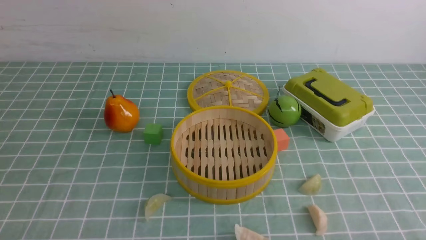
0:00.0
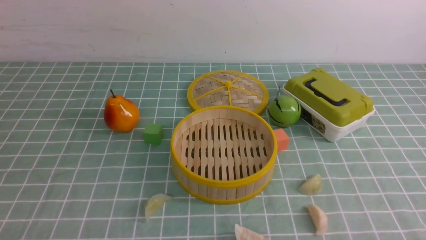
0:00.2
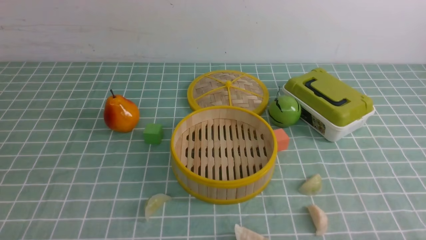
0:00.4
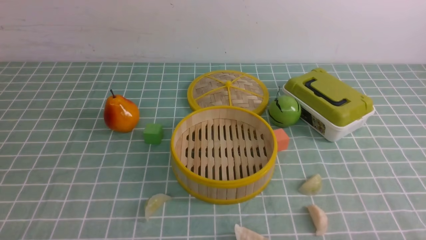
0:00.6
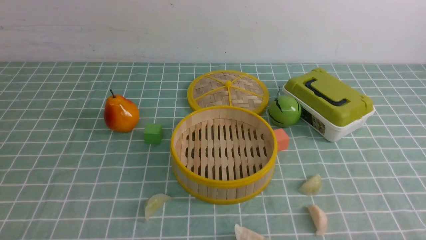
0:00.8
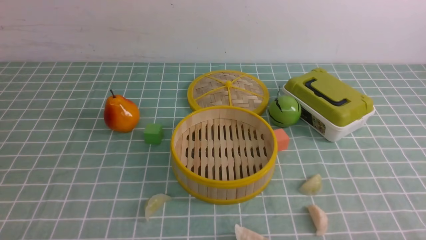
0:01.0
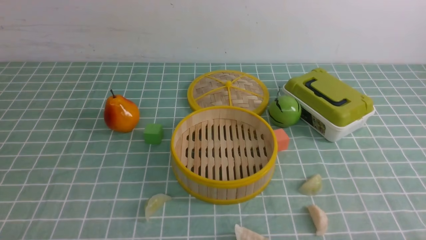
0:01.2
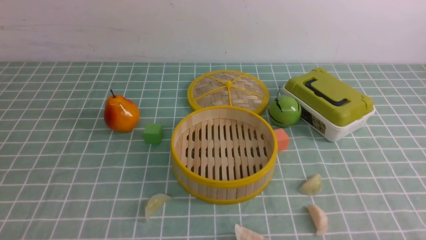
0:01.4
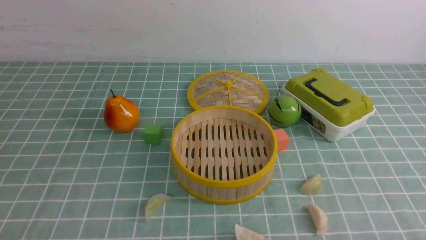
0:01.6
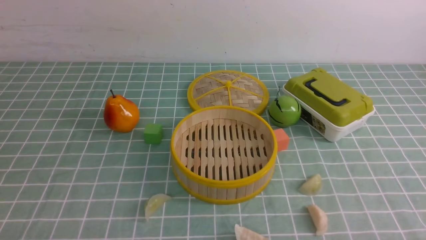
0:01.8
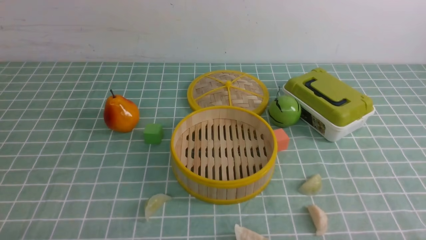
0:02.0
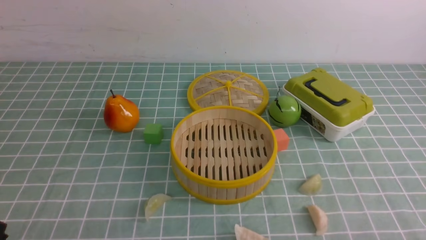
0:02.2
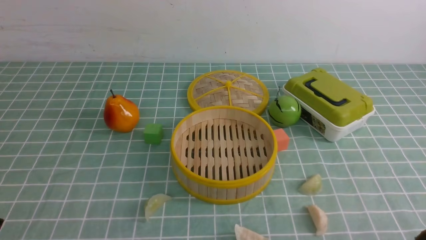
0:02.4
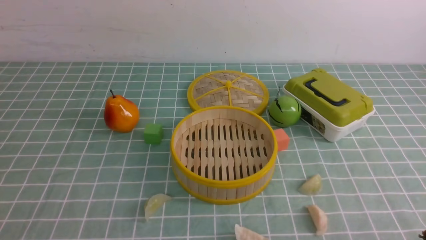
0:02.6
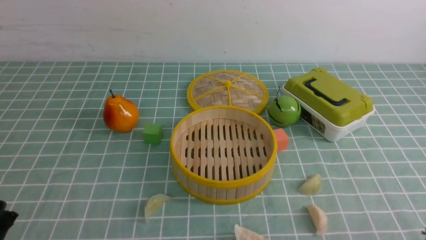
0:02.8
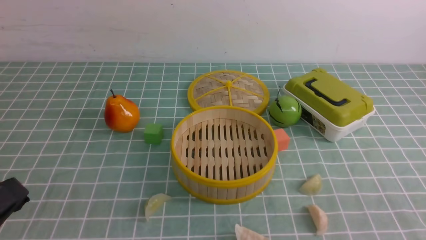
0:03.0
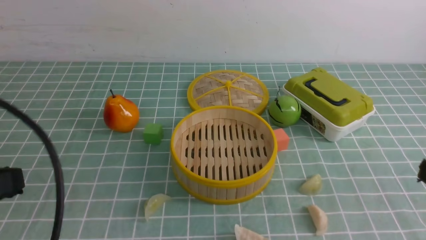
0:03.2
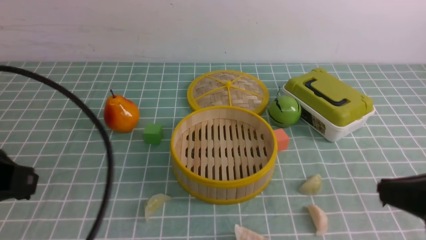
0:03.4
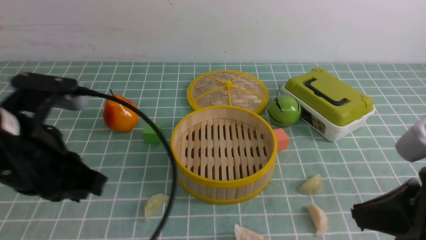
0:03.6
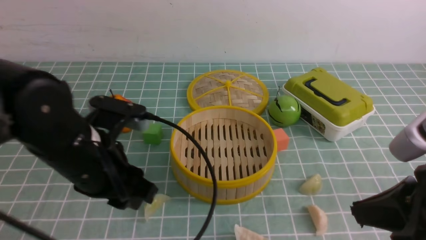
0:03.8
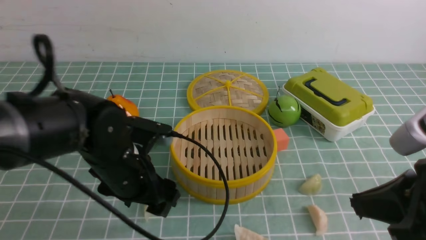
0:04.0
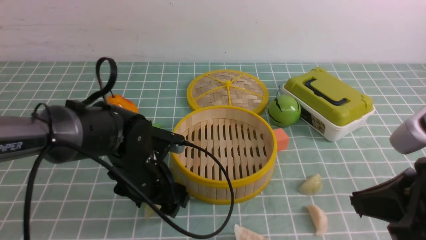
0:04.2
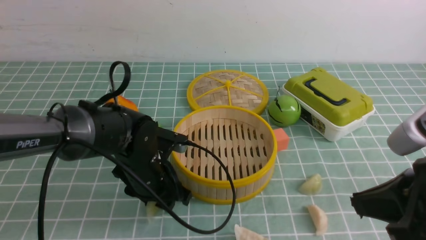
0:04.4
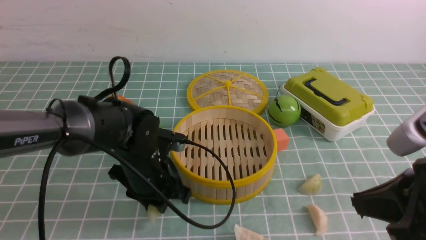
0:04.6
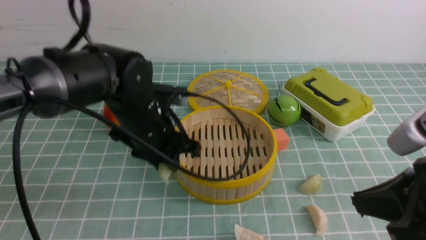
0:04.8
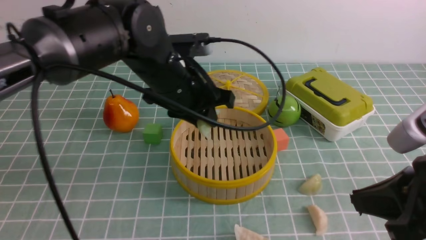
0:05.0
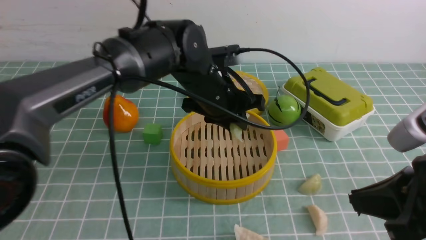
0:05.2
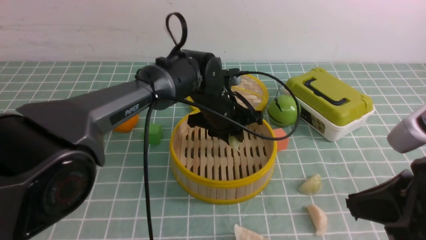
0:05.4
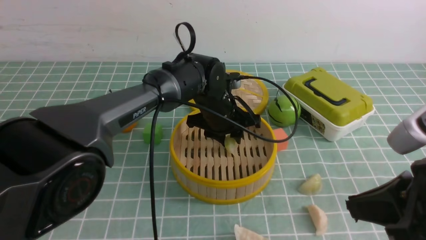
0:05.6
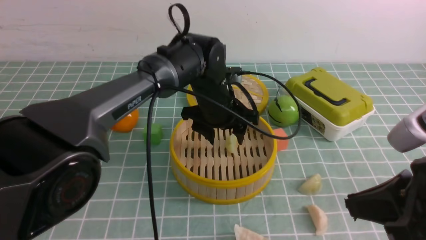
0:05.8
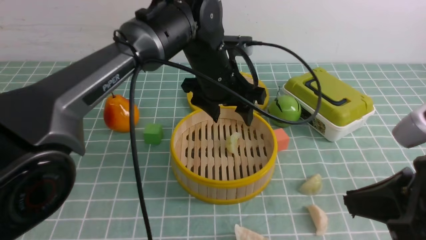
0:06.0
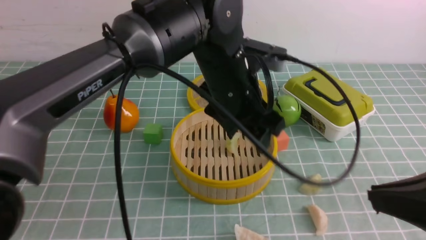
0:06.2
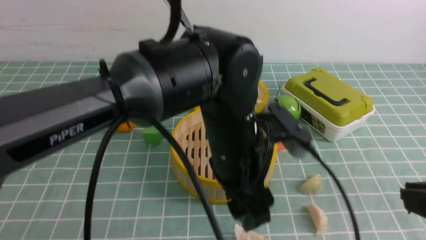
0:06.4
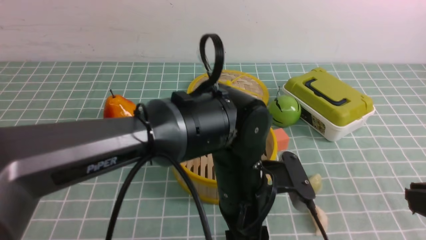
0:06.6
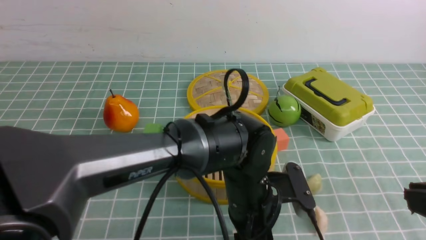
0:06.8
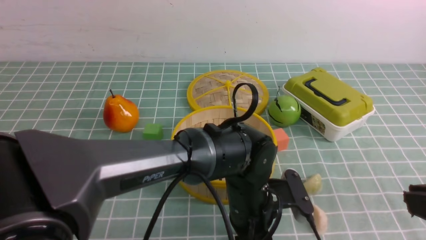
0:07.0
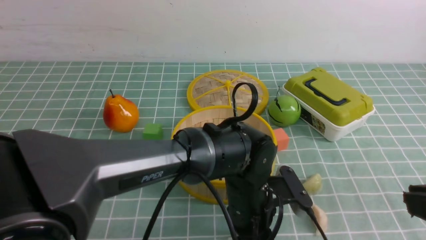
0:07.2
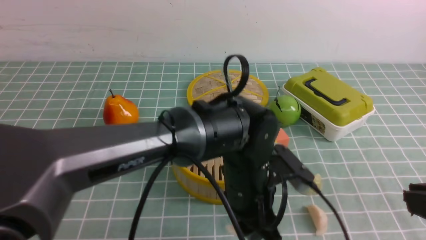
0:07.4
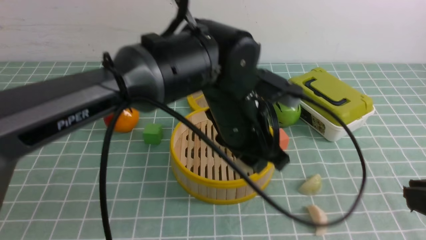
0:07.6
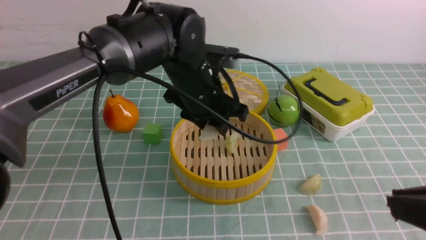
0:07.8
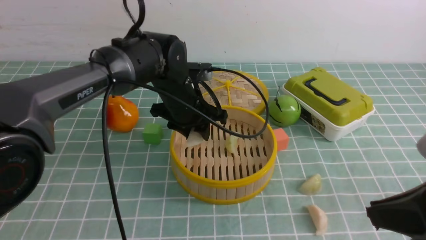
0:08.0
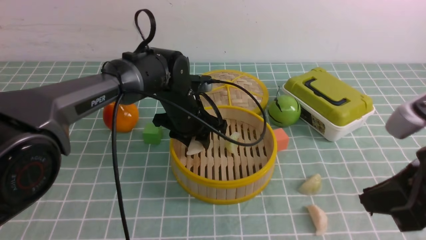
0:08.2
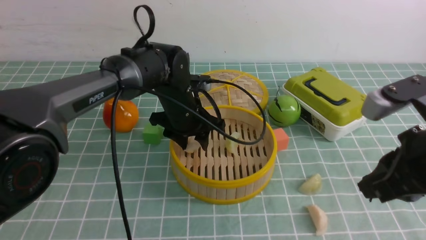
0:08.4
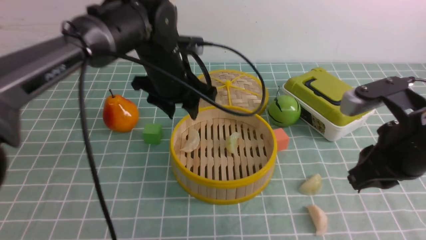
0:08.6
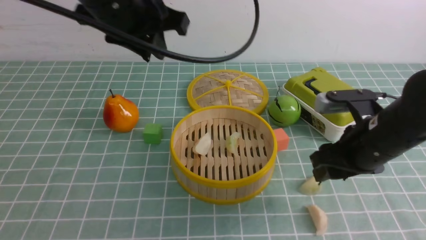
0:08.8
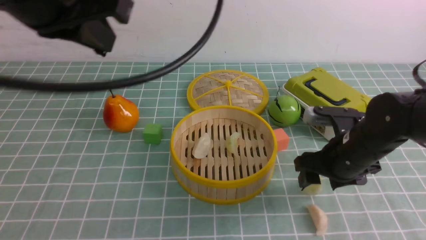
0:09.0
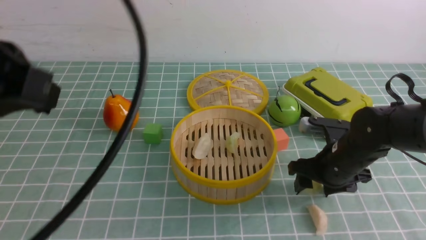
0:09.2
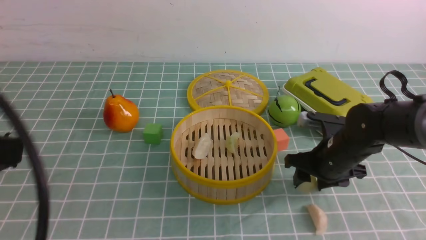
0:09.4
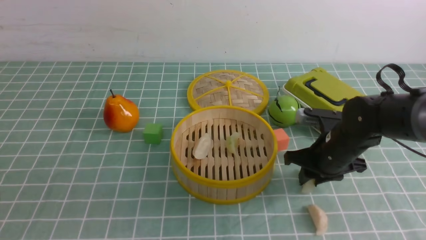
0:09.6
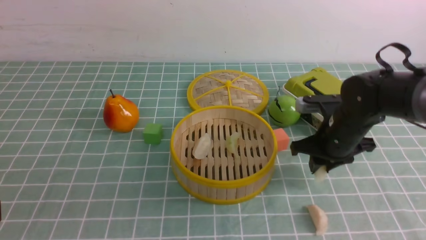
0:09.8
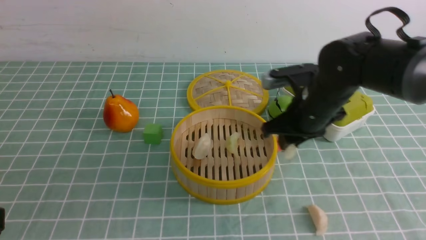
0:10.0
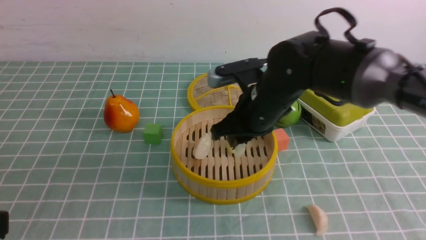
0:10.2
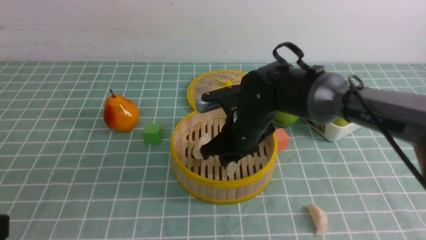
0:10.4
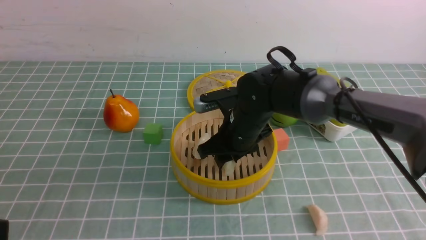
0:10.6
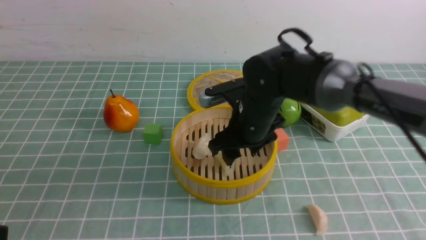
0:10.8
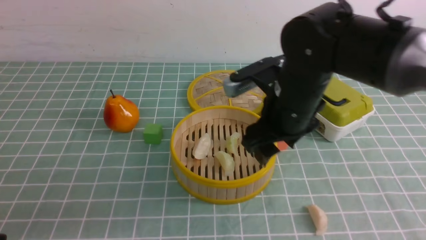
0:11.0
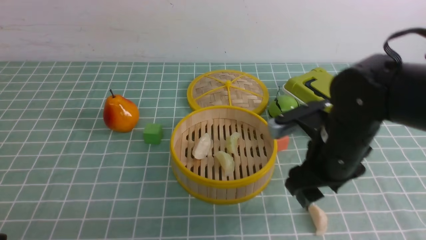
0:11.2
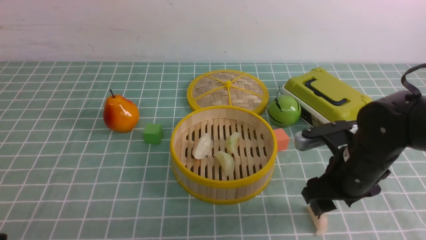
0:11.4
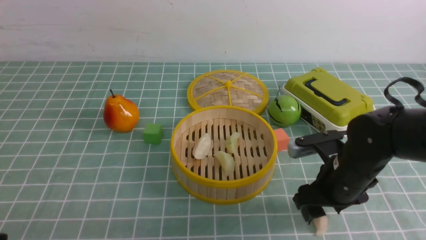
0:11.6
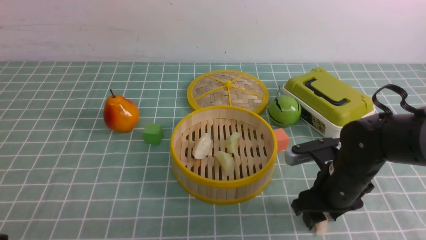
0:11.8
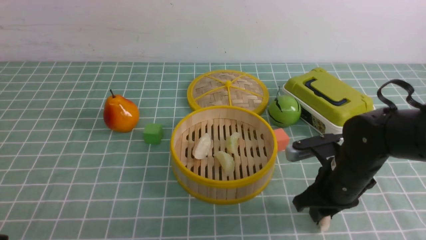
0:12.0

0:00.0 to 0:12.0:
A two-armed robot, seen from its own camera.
Task of the whole recording: put the dumplings into the steamer on the table with the blue tablecloth.
Step, 0:00.0 to 0:04.2: use the left arm to grab a dumpling.
Step, 0:04.6 to 0:05.8: use the left arm to put the dumpling into the steamer.
Step, 0:06.2 to 0:07.0: use the left arm to grab a dumpling.
Step, 0:07.4 to 0:08.6: use the left arm to put the dumpling into the steamer.
Step, 0:08.8 to 0:09.4: use the right arm to grab a dumpling.
Step, 0:09.6 to 0:10.8: use the right arm to put the dumpling into the steamer.
Step, 0:11.0 to 0:11.8: use the right arm to grab a dumpling.
0:00.0 to 0:01.6: Both grippers stay put.
0:01.6 to 0:03.0: The left gripper is displaced upward by some 15 cm.
0:03.0 to 0:04.4: The left gripper heads forward, downward and to the right, covering some 30 cm, and opens up. Meanwhile the right gripper shifts roughly 10 cm forward and to the left.
0:04.4 to 0:06.0: The left gripper swings up and down, roughly 10 cm each way, with 2 reversals.
0:06.0 to 0:07.6: The left gripper travels backward by some 5 cm, reaches roughly 10 cm downward, then returns, and closes, while the right gripper shifts by roughly 5 cm.
0:07.6 to 0:09.0: The left gripper is displaced upward, to the left and backward by approximately 30 cm, and closes its fingers, while the right gripper heads forward and downward, covering approximately 30 cm, and opens.
0:09.0 to 0:10.4: The right gripper shifts roughly 15 cm to the left, and closes up. Meanwhile the left gripper moves backward, downward and to the left, approximately 20 cm.
0:10.4 to 0:12.0: The right gripper travels to the right and backward by some 15 cm, and opens and closes again.

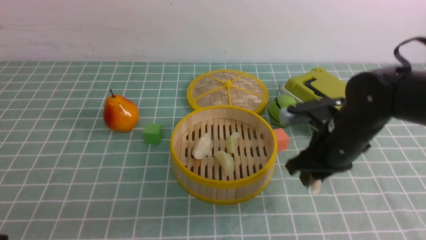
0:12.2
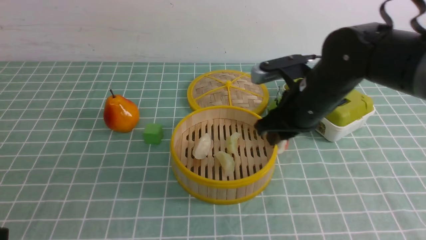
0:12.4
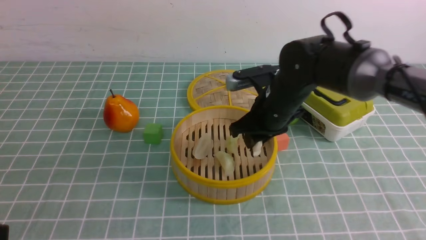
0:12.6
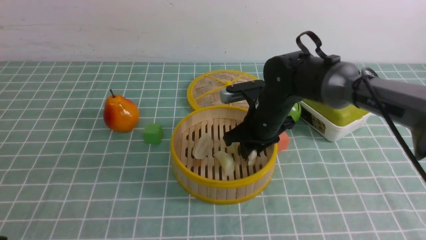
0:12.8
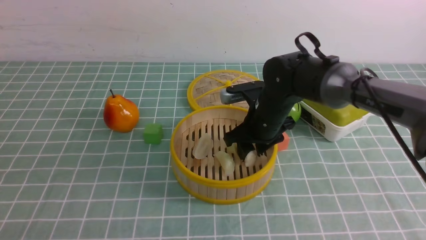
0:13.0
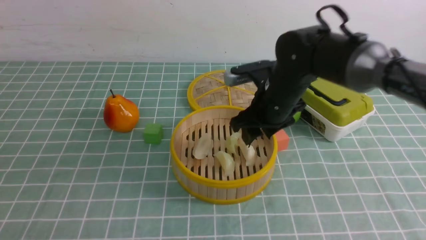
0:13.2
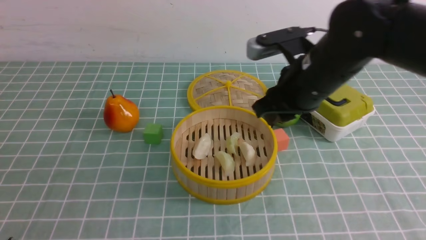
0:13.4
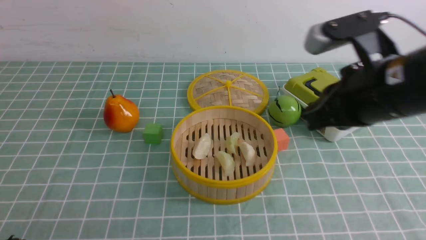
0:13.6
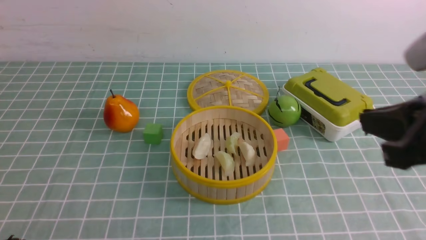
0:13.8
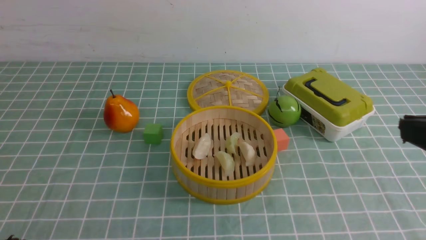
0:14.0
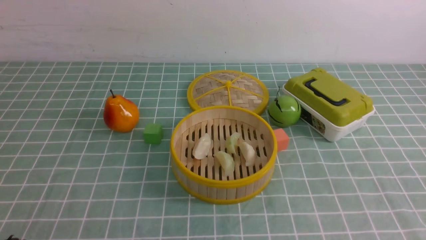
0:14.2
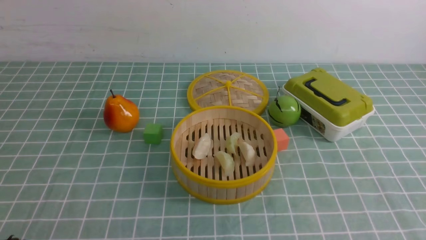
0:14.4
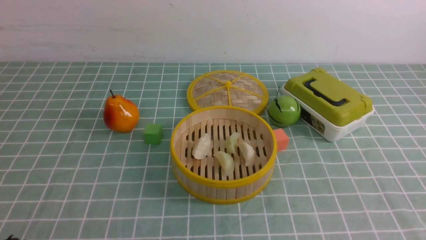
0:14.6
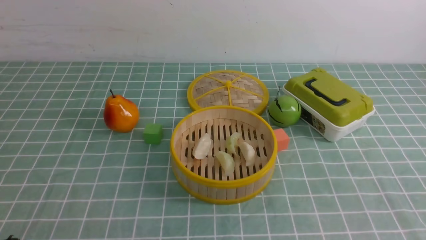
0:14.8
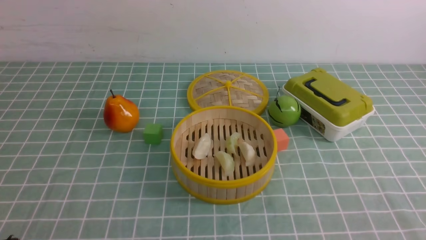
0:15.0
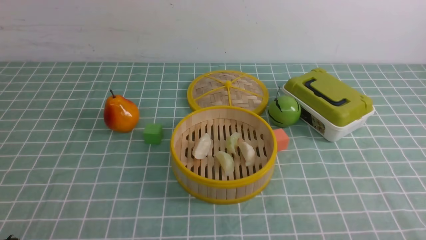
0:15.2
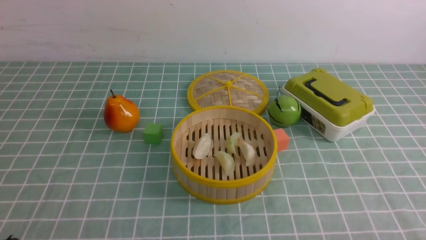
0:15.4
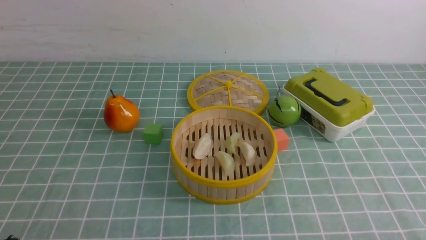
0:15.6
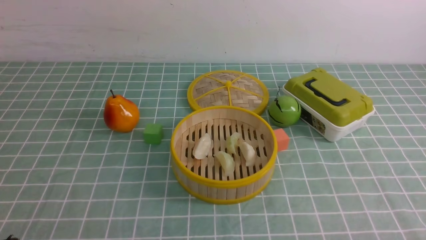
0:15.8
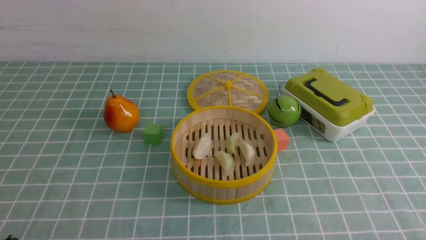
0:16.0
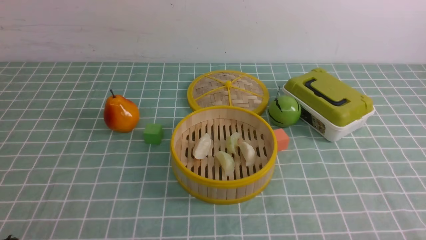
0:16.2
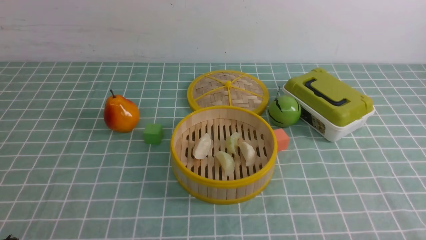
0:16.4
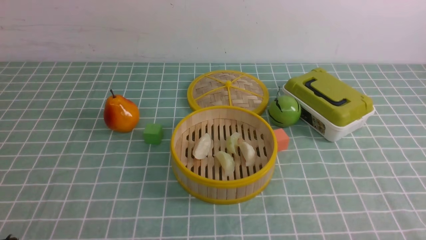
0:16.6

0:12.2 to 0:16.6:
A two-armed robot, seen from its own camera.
Task of the whole recording: put the dumplings into the steamer on the table with the blue tablecloth.
Step, 0:12.2 to 0:13.2: use the right arm to put the dumpling into the steamer.
0:12.2 to 0:13.6: The right gripper moves upward and backward, roughly 15 cm.
0:13.6 to 0:15.2: The right gripper moves backward, downward and to the right, some 25 cm.
